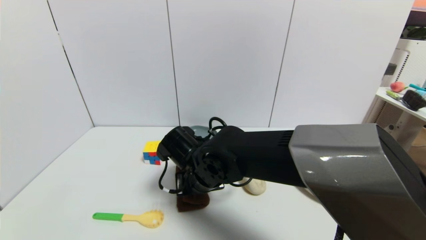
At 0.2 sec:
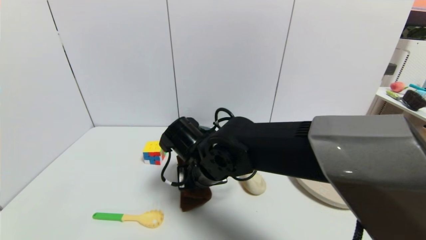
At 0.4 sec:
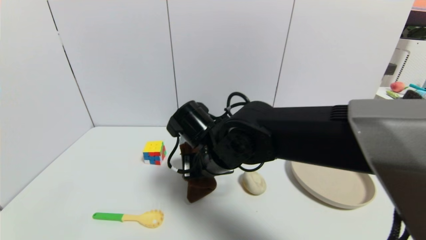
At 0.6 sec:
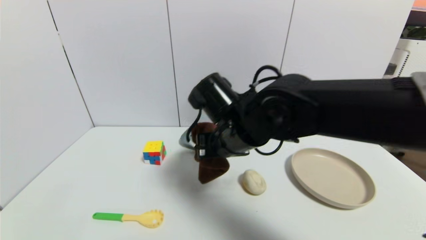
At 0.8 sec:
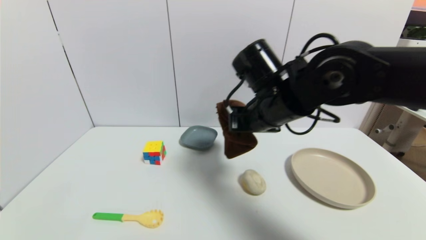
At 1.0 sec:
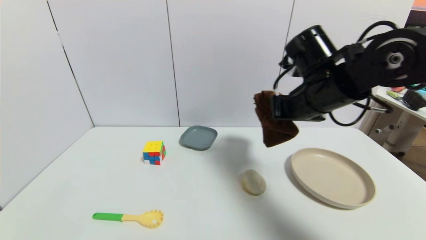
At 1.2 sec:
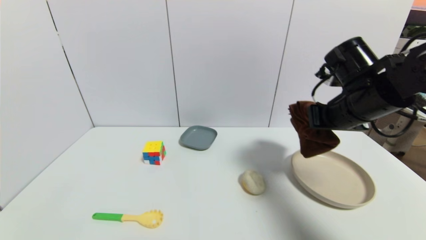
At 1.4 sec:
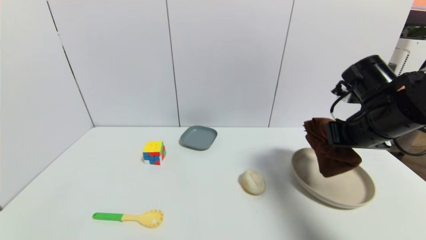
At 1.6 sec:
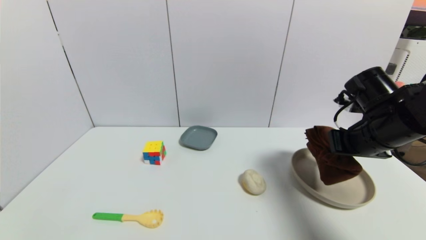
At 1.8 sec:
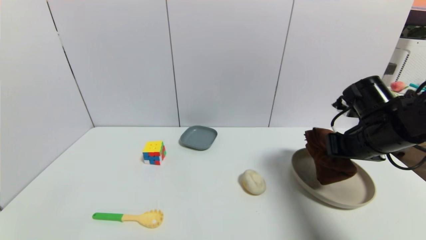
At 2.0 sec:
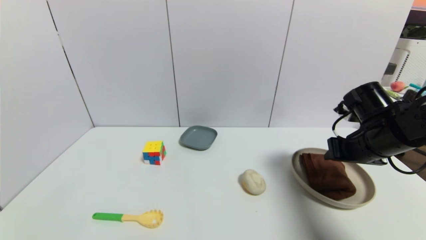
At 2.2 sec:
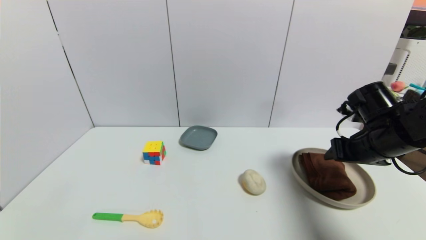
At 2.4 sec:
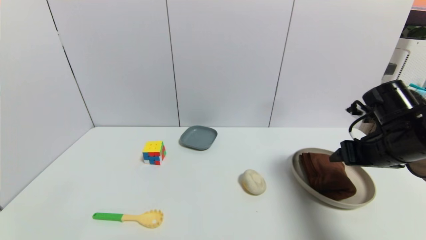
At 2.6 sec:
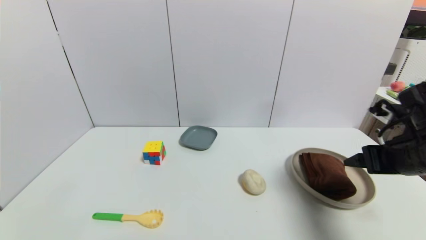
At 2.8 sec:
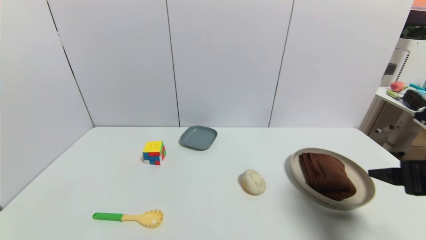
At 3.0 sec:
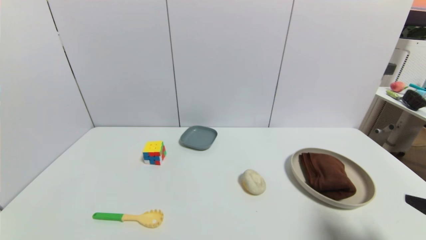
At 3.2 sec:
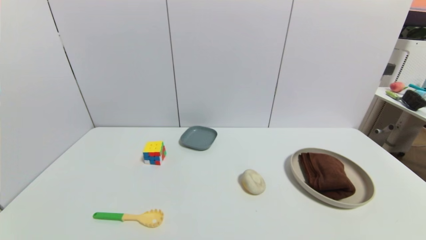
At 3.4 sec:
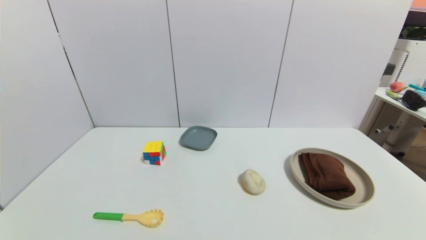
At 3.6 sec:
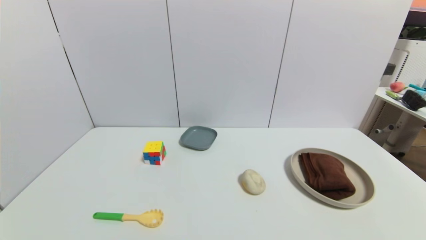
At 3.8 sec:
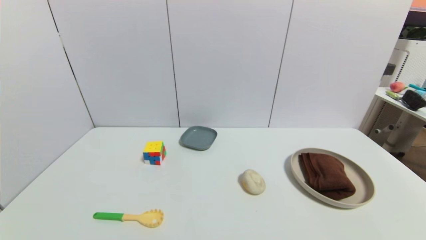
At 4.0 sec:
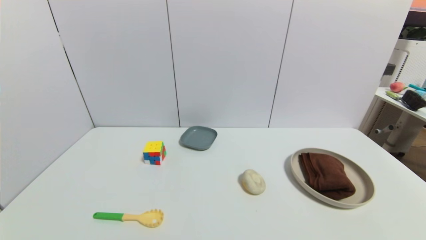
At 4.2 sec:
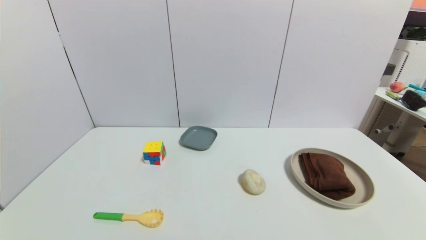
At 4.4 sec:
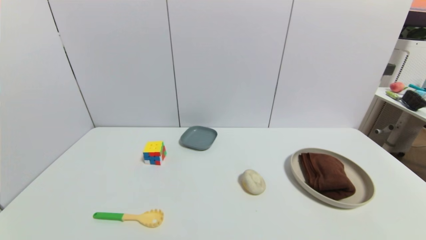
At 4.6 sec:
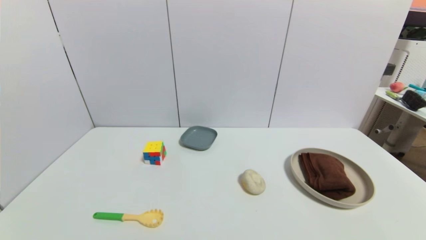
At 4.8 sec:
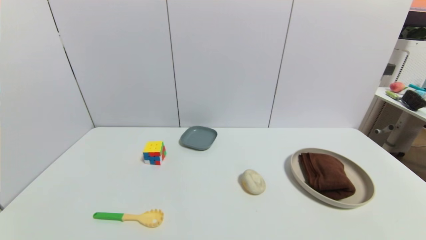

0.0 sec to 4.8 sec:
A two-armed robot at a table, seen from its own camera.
Task of the whole recording: use a gripper to pick the target object and place on the brown plate.
Step, 0.4 sec to 2.4 sec: Place the brown towel on the brown plate with the right gripper.
0.0 sec to 1.6 sec: The right gripper goes approximately 30 cm to the right.
1.6 sec to 3.2 sec: The right gripper heads backward, covering roughly 25 cm, and opens its fingers.
